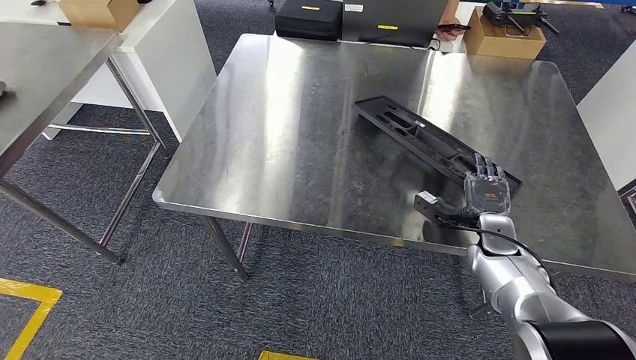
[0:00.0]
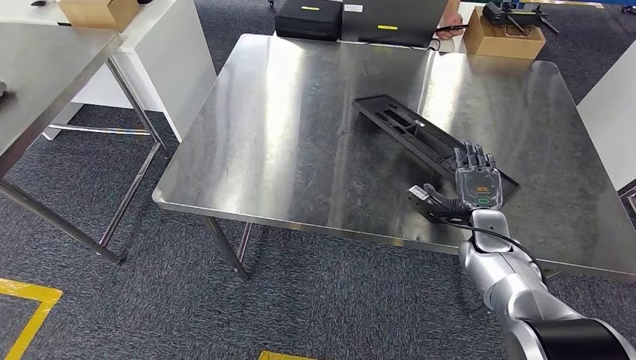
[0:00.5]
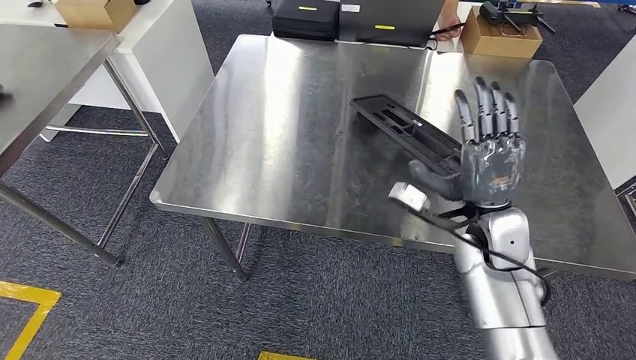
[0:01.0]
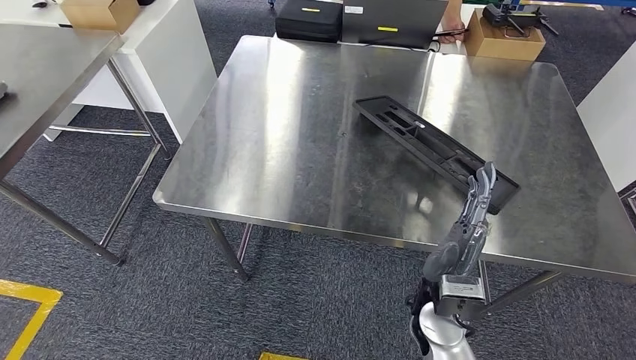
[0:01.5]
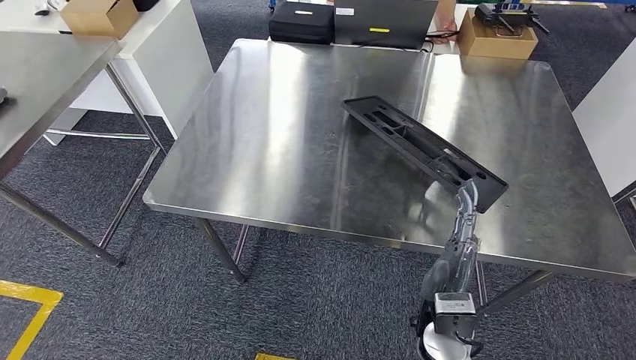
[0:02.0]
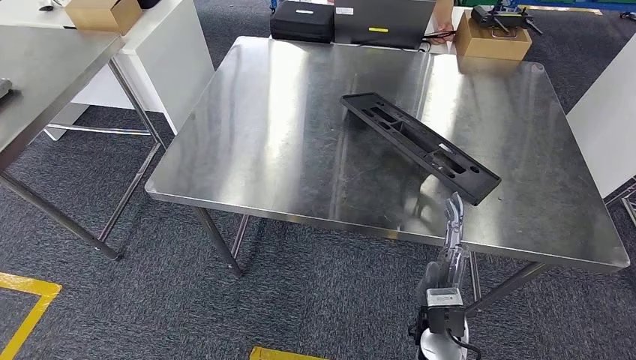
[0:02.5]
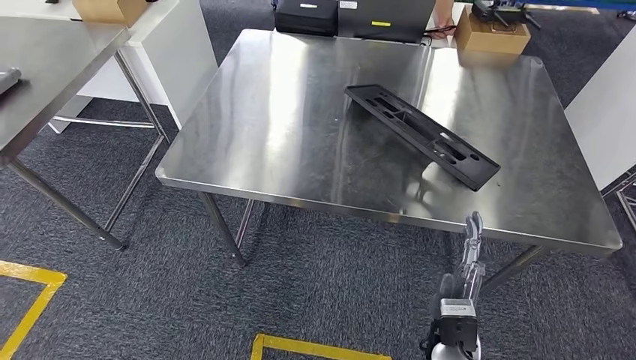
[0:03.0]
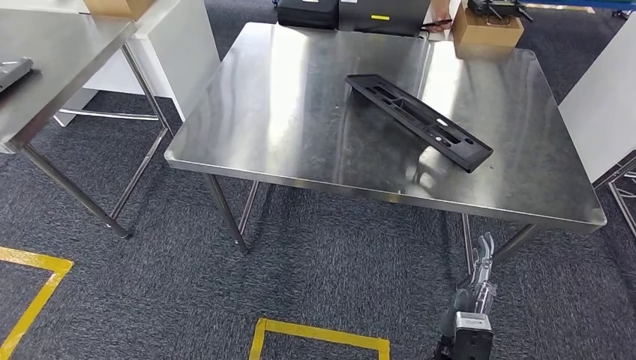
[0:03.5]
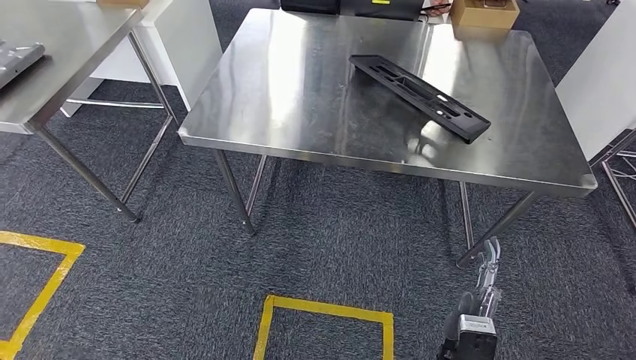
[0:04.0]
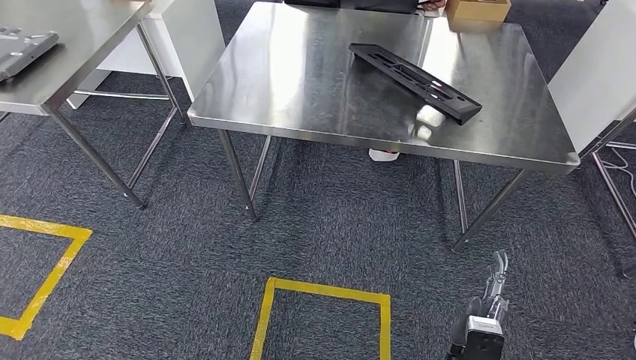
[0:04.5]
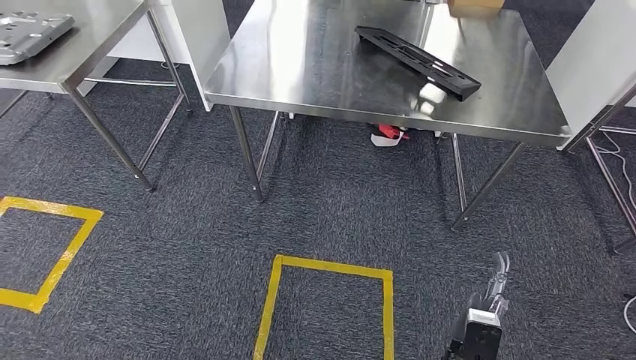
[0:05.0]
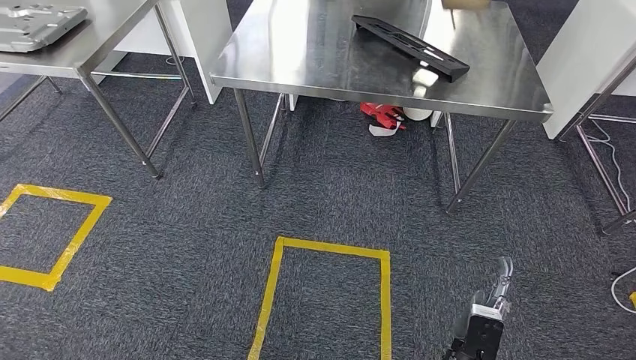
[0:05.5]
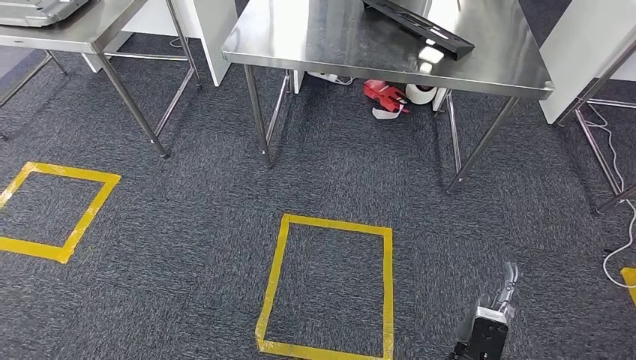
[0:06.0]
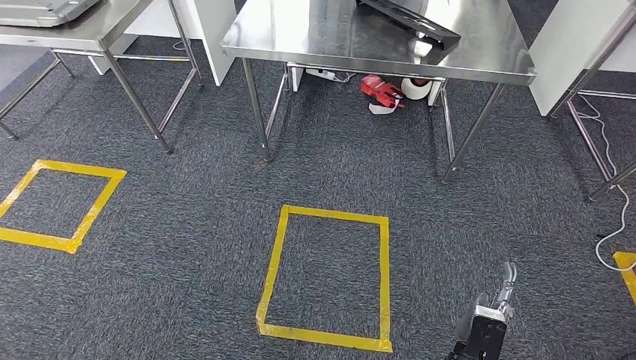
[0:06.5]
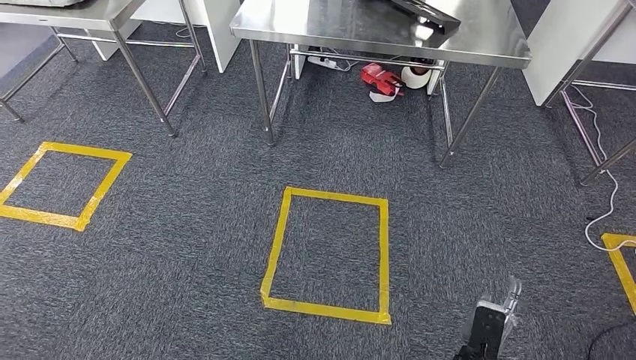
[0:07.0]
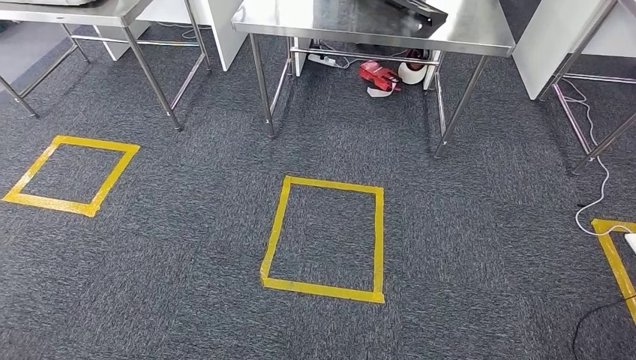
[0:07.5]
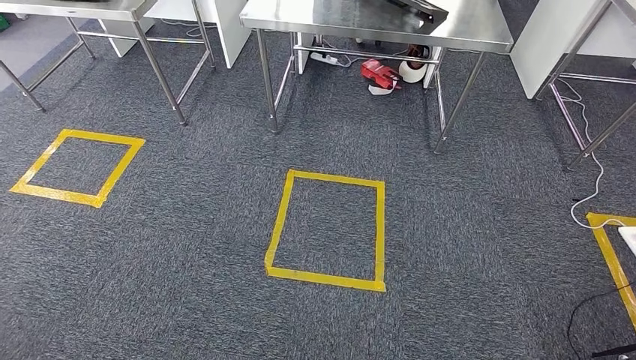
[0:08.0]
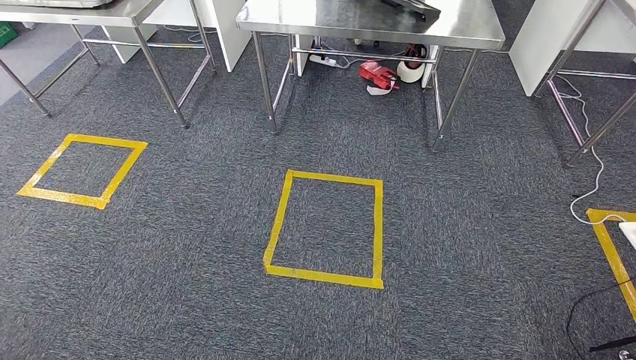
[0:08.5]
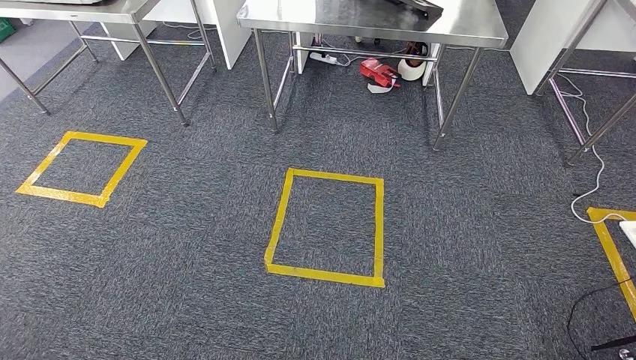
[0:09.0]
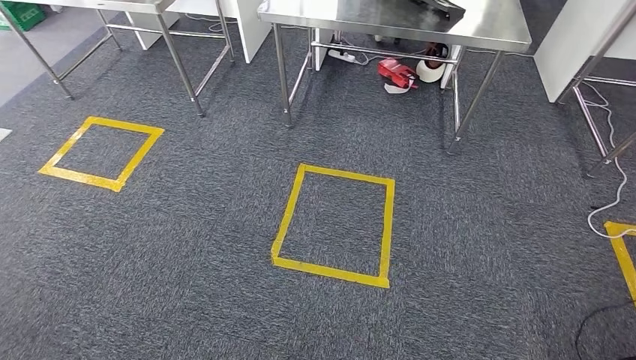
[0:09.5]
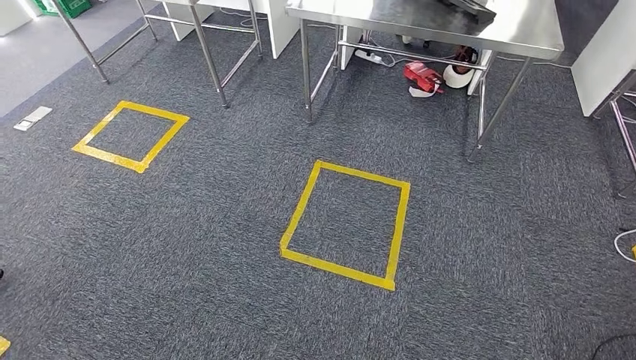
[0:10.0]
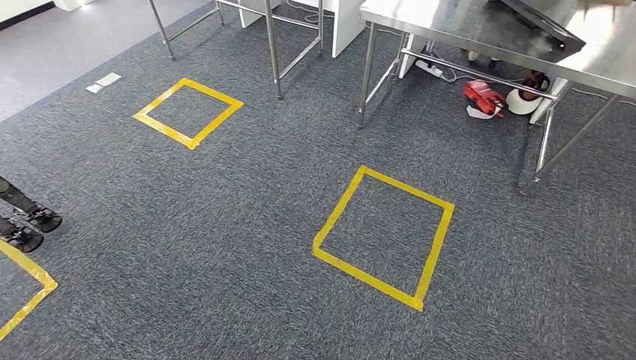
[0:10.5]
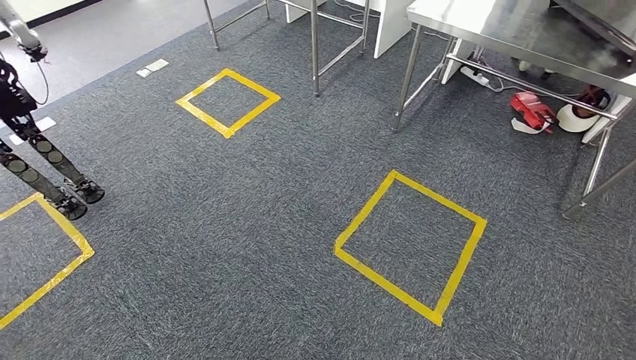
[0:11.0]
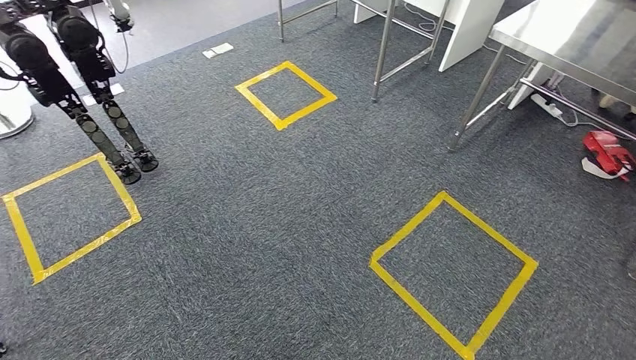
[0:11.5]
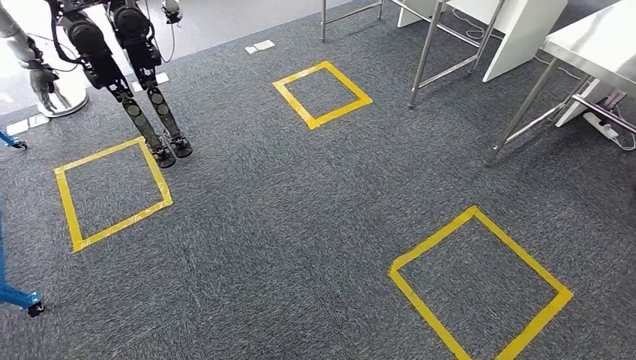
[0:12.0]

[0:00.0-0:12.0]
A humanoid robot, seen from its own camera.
Step, 0:00.0 to 0:02.5: Insert the large material into the corresponding slot on the workbench.

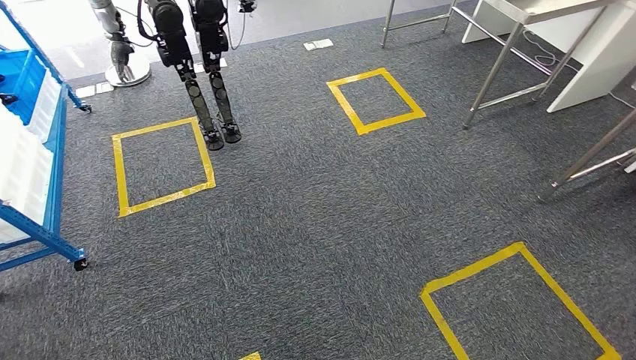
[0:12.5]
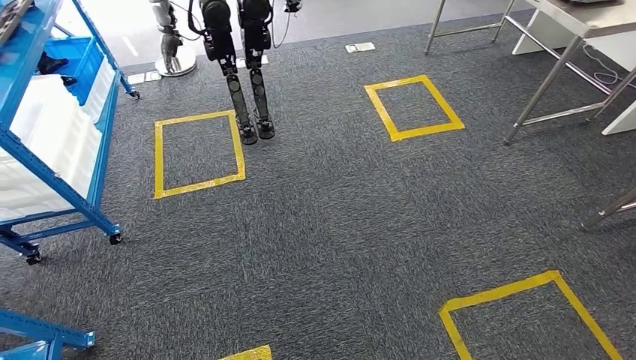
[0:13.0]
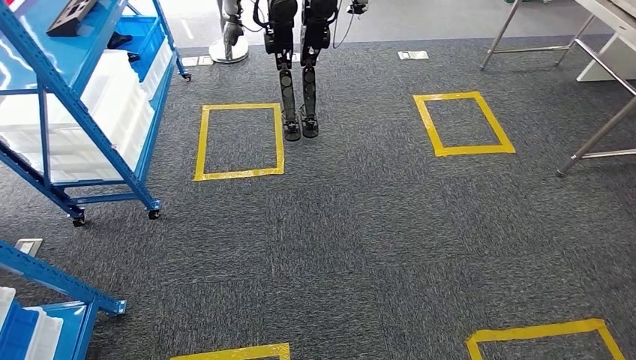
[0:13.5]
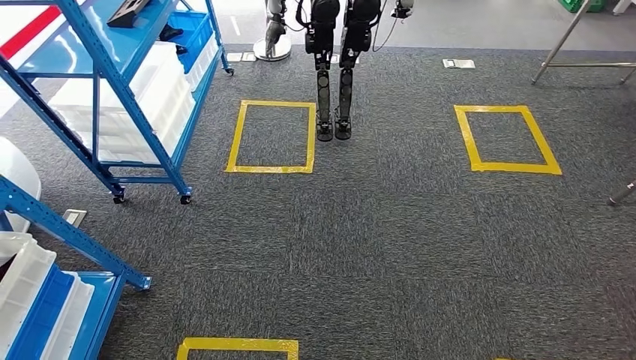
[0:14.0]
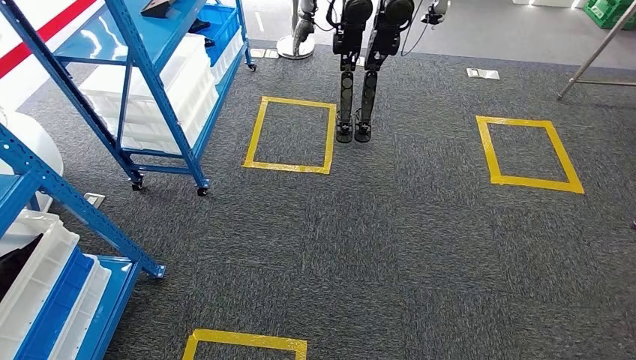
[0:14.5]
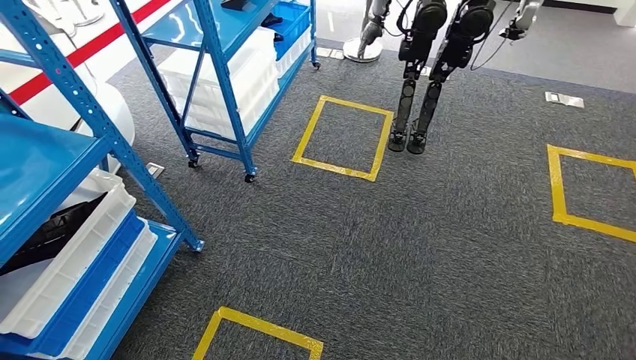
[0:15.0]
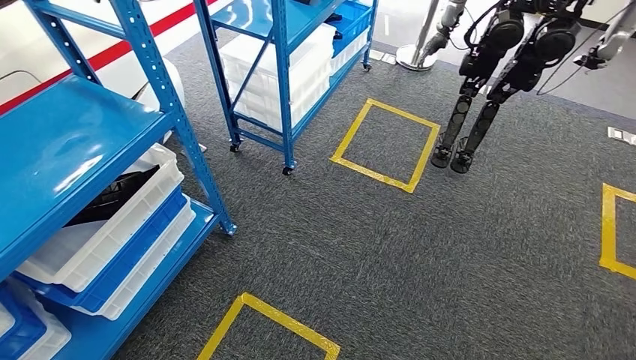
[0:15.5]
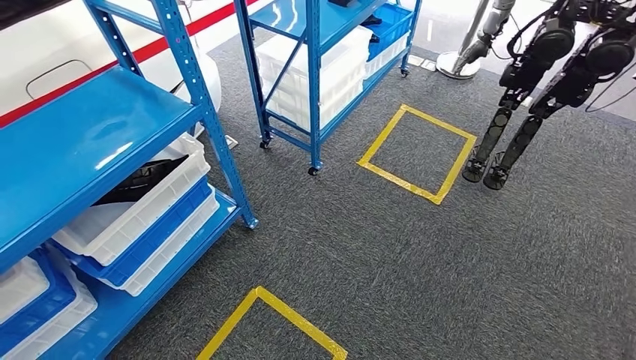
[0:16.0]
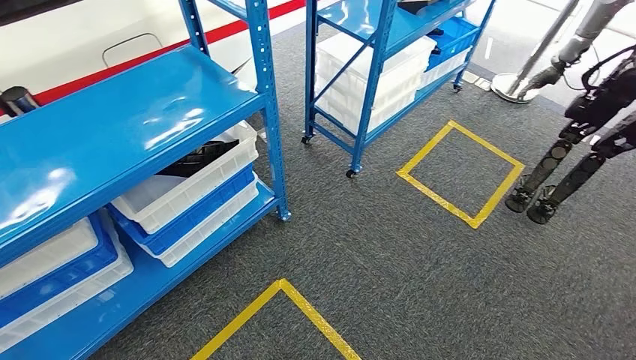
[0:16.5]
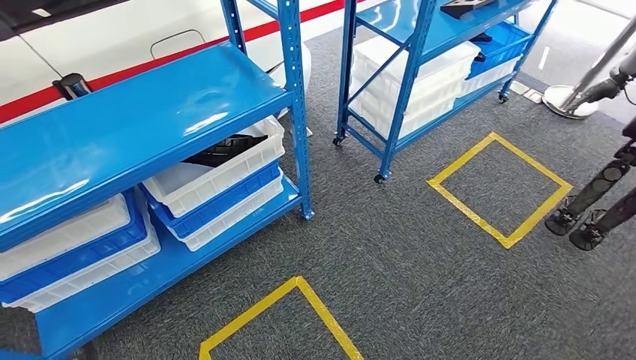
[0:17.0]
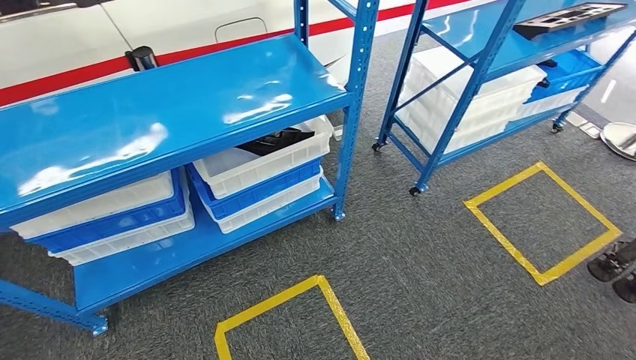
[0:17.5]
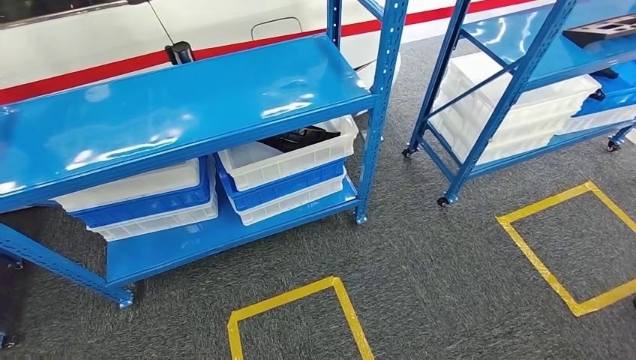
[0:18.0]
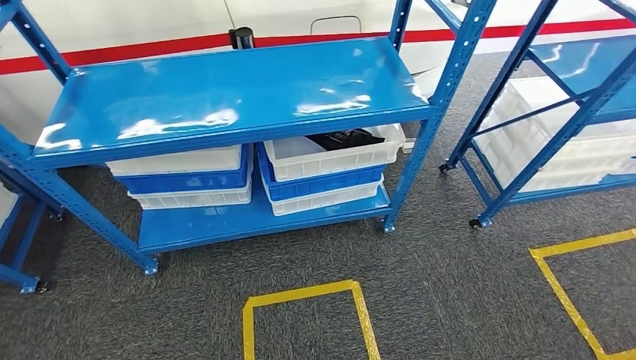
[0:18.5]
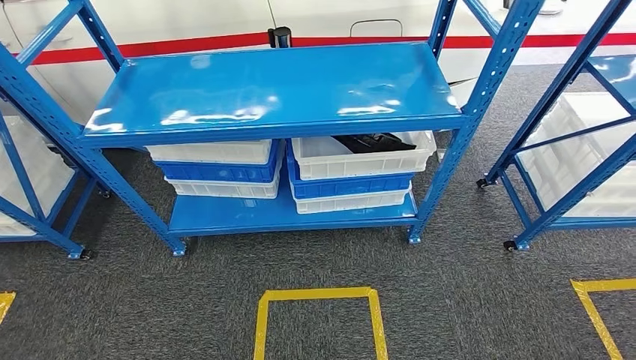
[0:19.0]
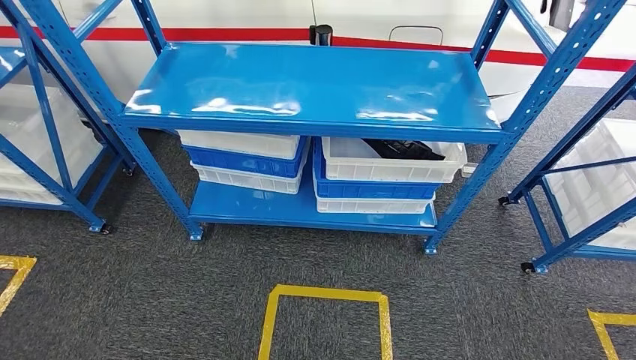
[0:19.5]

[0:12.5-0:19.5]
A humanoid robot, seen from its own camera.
Step, 0:12.5 to 0:19.5: Move to the initial position of the shelf.
